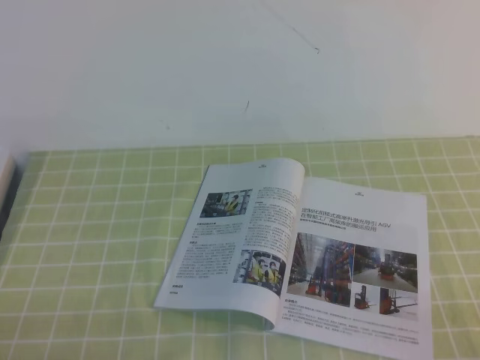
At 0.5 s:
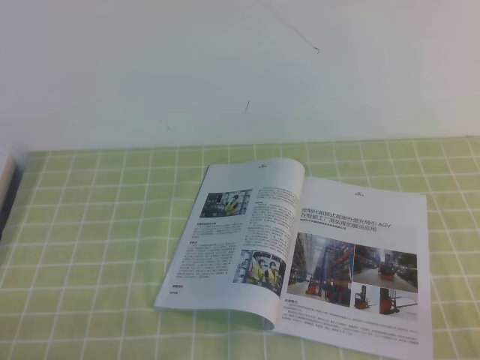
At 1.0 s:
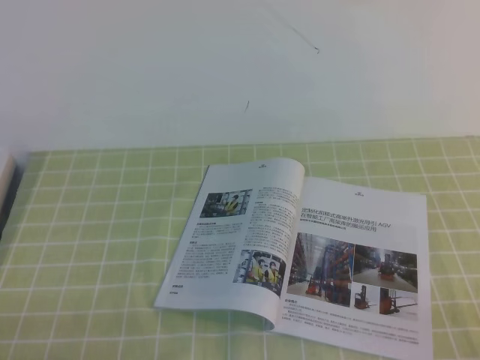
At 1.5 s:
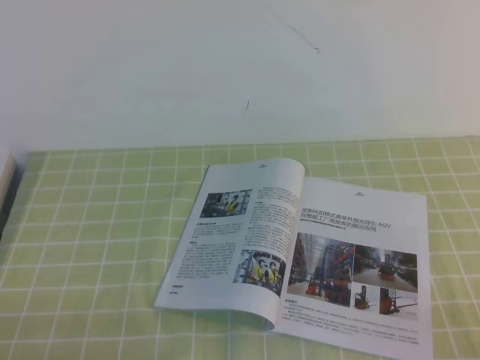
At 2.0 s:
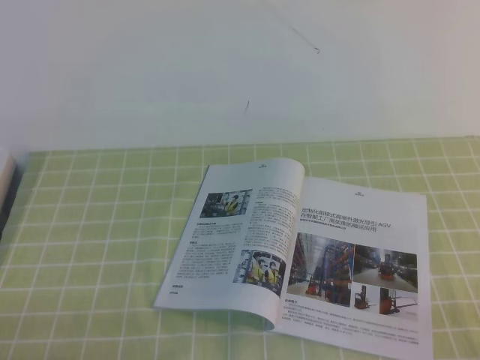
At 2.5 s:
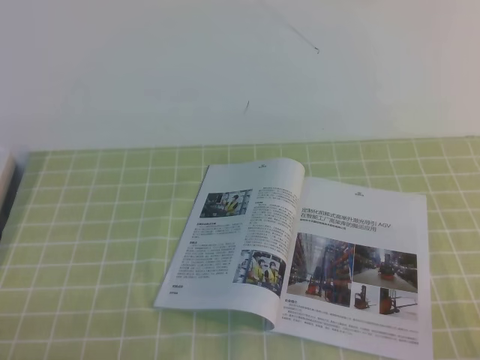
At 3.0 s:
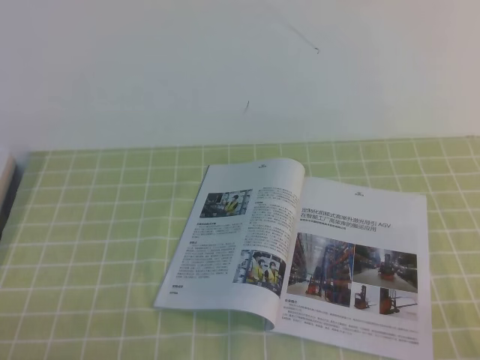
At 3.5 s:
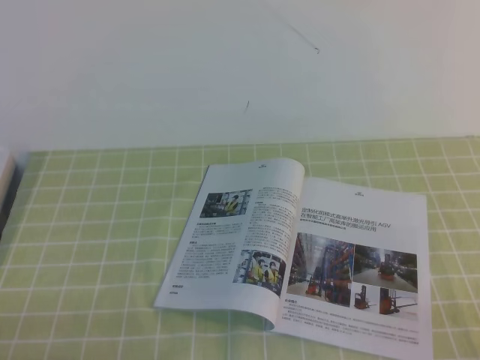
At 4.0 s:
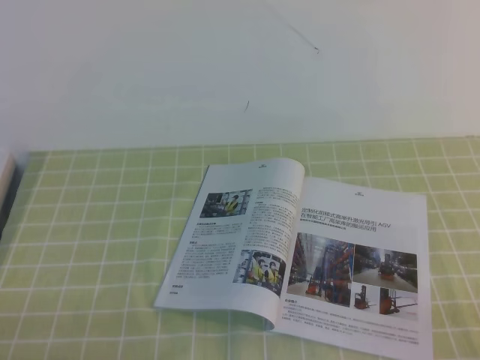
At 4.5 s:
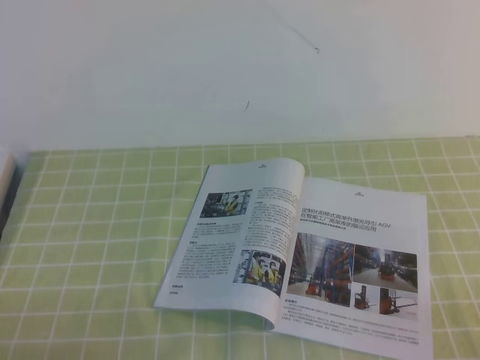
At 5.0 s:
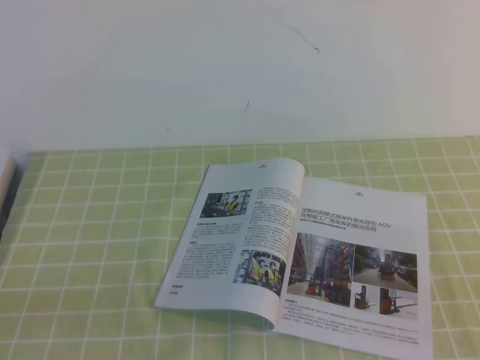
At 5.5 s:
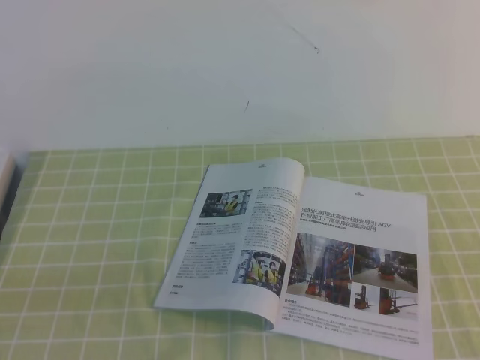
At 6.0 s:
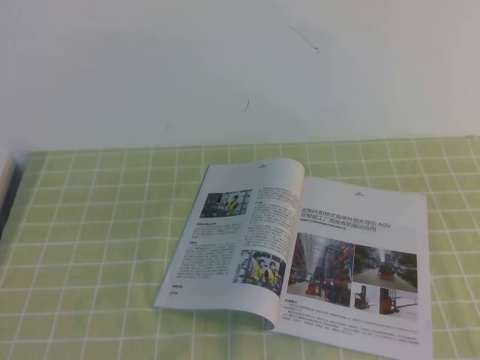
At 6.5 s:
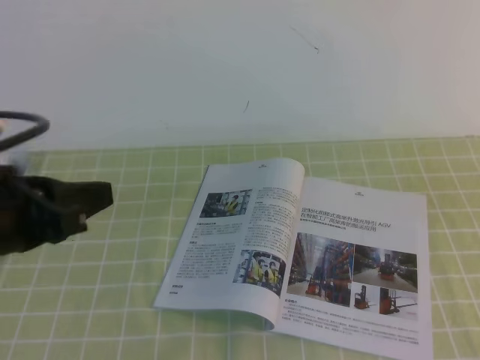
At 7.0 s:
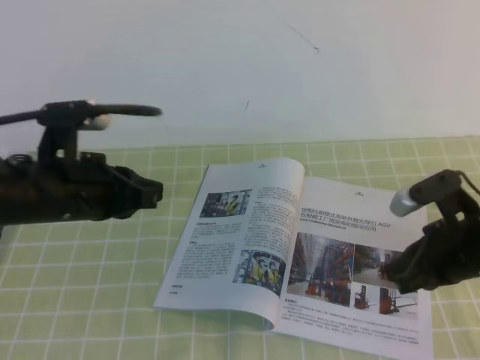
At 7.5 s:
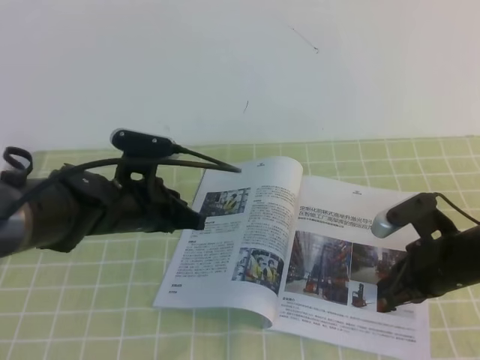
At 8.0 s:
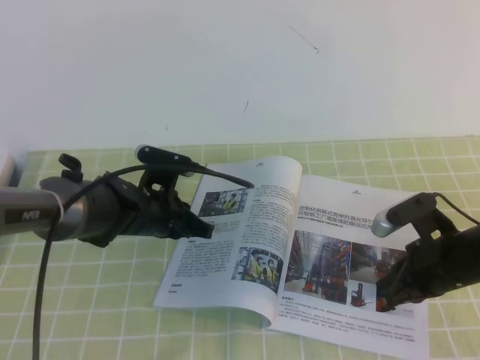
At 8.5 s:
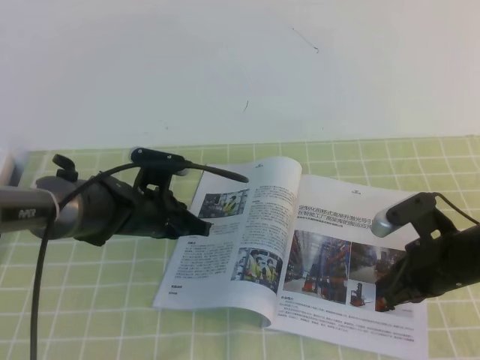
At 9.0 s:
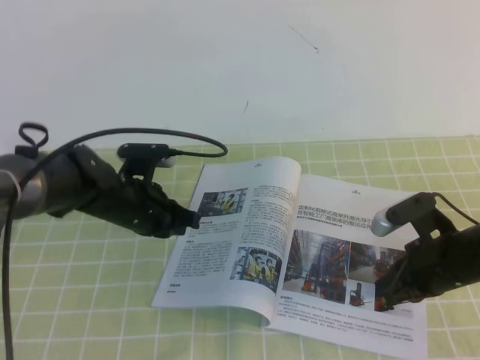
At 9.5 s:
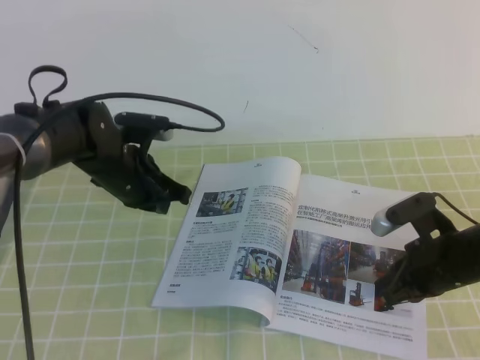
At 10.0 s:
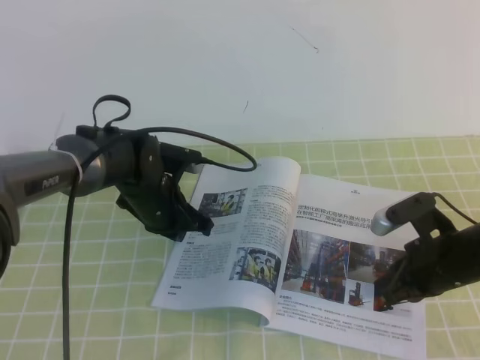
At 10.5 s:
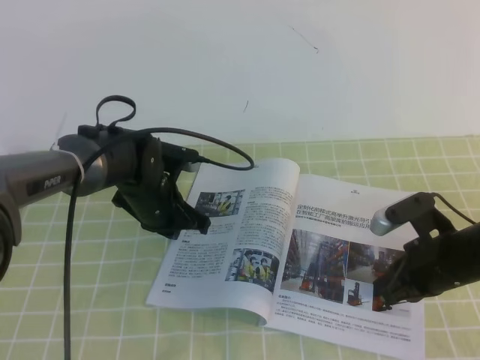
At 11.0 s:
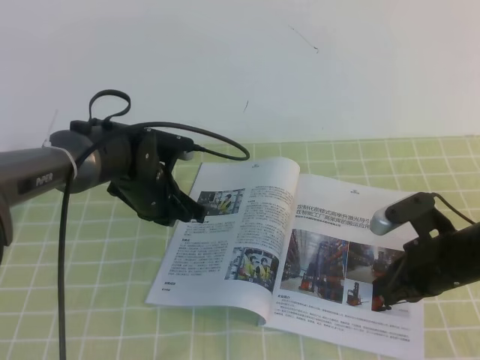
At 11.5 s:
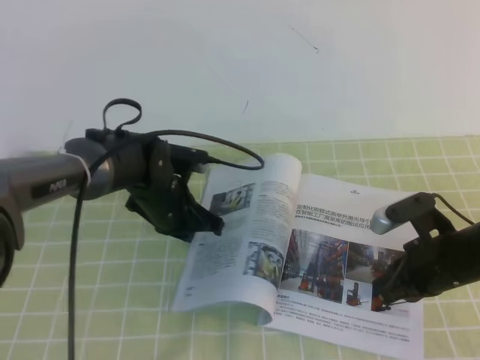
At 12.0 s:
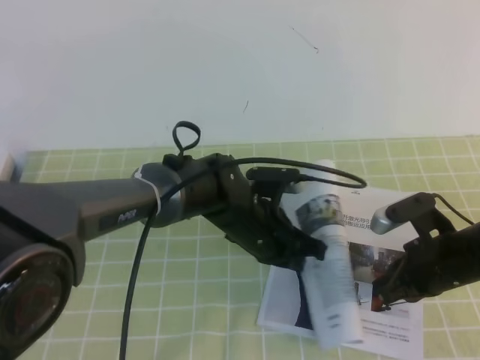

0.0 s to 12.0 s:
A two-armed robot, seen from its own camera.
Task of the whole recording: on the green tablecloth, hold the book with one hand and close it with the other.
0.0 to 4.0 s: The two grippers keep their place.
6.0 to 8.0 s: The left gripper shifts roughly 40 cm forward, downward and to the right. Meanwhile the right gripper goes some 35 cm downward and forward.
10.0 to 12.0 s: The left gripper moves to the right and backward, about 15 cm.

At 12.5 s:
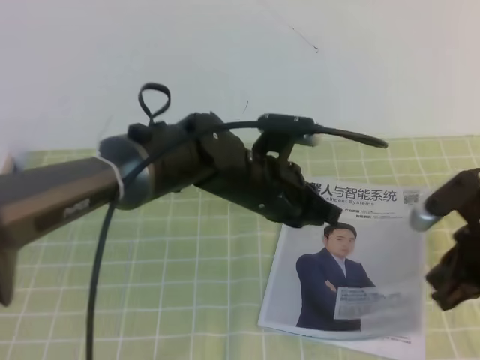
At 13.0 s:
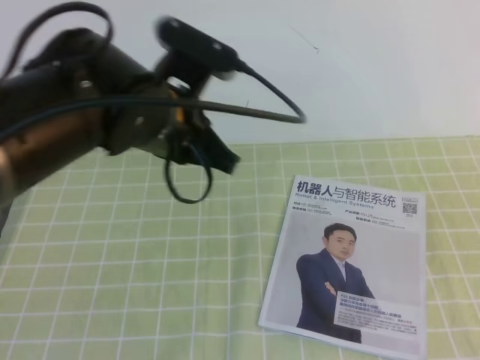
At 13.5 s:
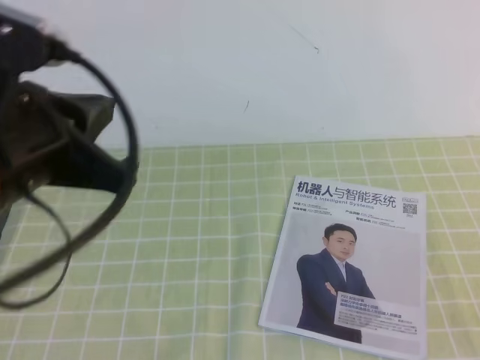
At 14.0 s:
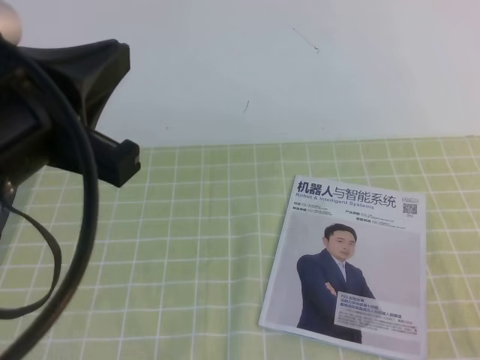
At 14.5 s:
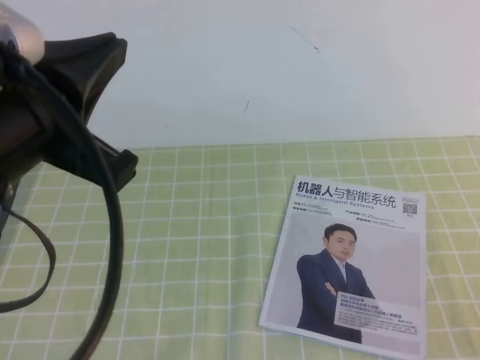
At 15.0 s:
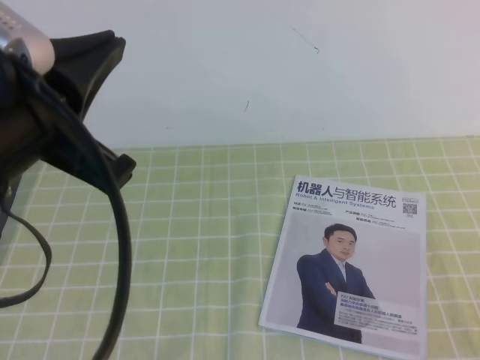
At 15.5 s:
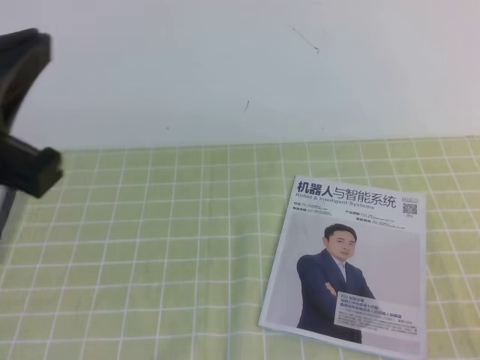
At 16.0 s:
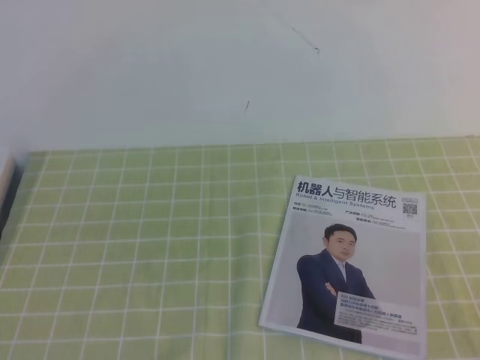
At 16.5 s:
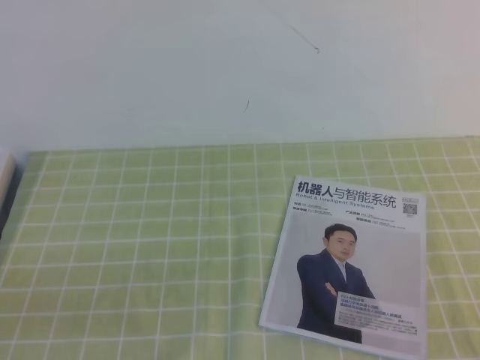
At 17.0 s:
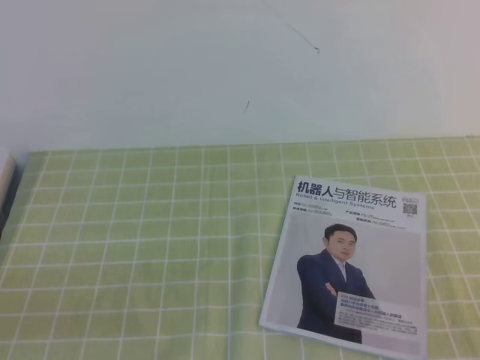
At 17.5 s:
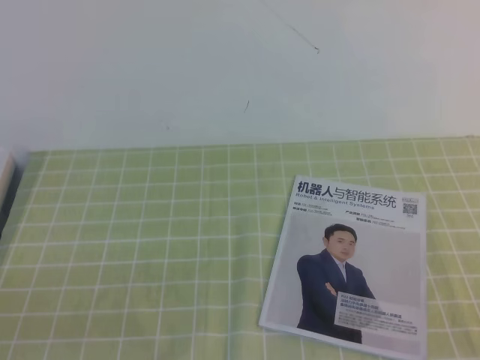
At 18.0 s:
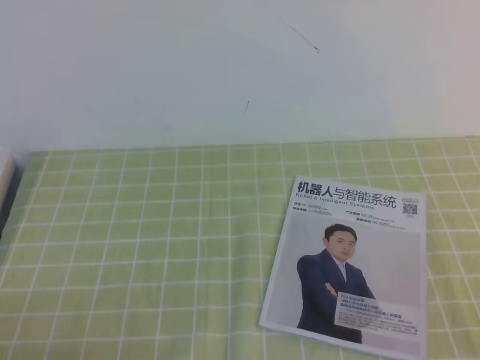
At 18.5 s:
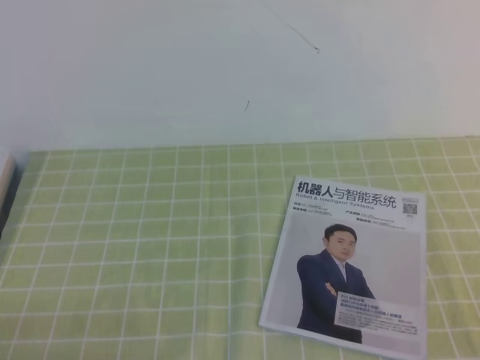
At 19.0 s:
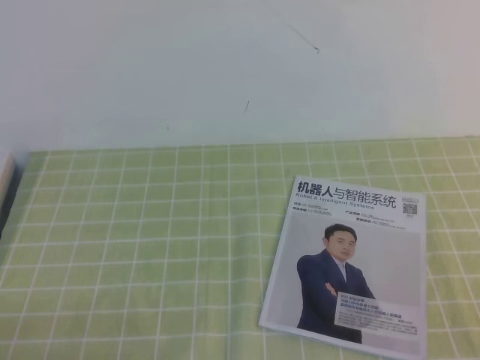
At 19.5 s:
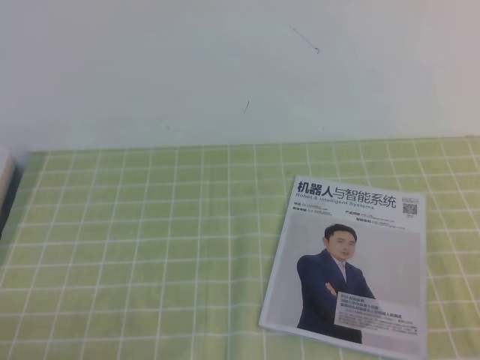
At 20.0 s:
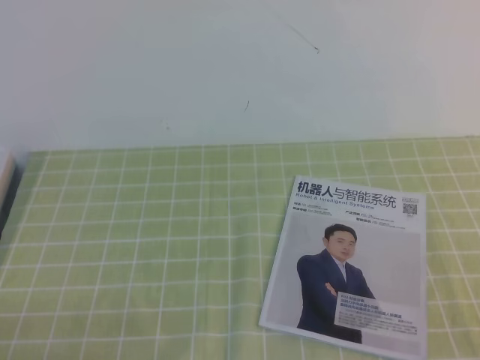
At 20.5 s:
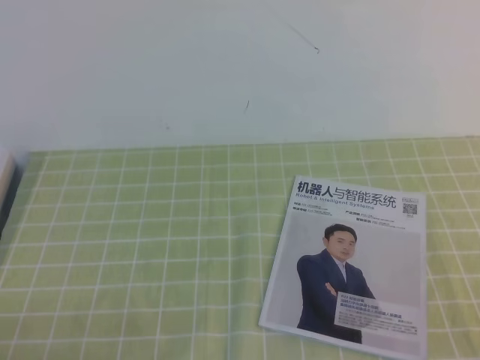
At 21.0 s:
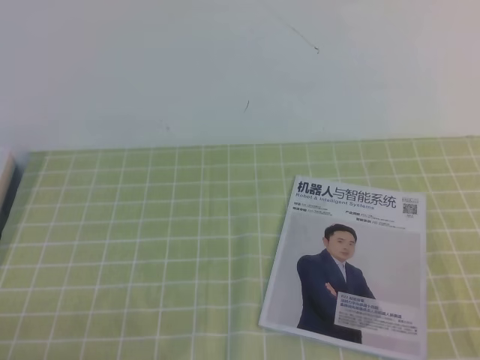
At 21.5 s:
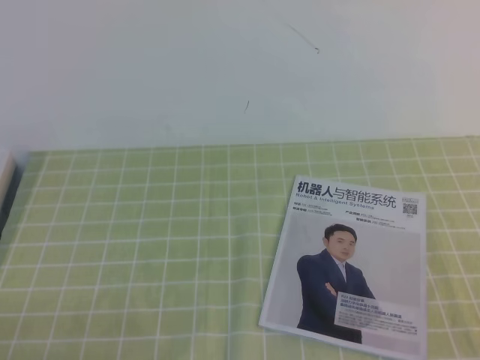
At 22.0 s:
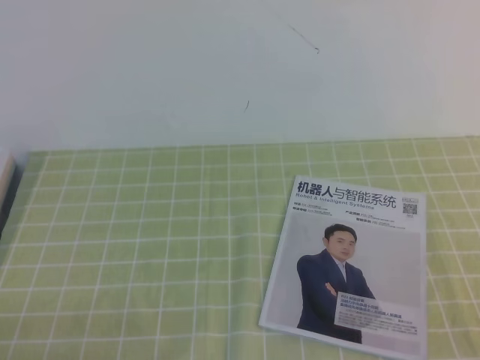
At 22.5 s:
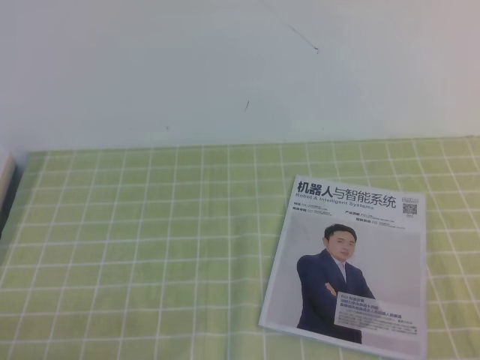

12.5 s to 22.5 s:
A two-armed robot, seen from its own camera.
Task of the whole recording: on the green tablecloth, hold the book with one hand and close it with the other.
12.5 to 14.5 s: The right gripper shifts approximately 20 cm backward. Meanwhile the left gripper is displaced upward, backward and to the left by approximately 30 cm.
14.5 to 16.5 s: The left gripper moves downward, backward and to the left, some 20 cm.

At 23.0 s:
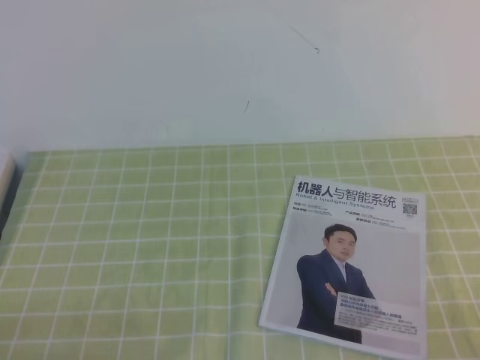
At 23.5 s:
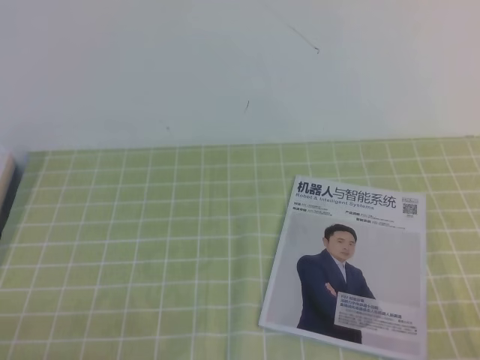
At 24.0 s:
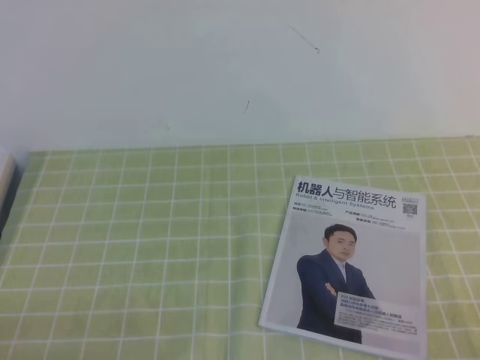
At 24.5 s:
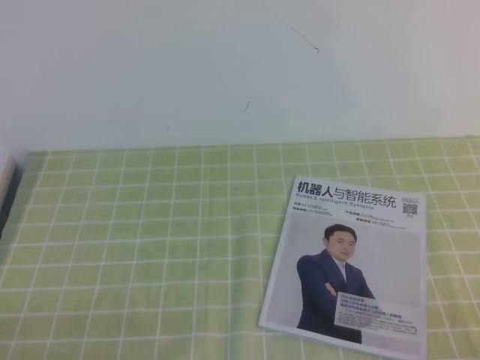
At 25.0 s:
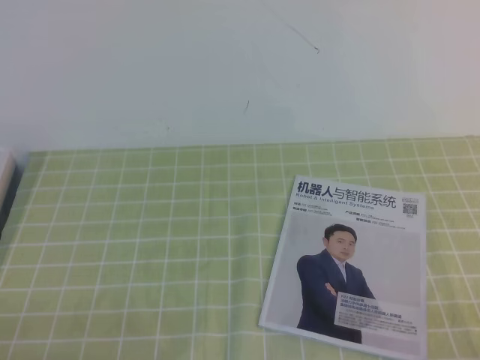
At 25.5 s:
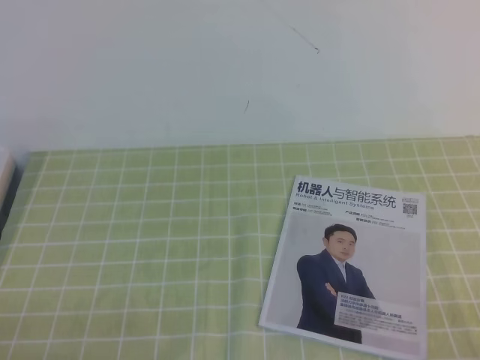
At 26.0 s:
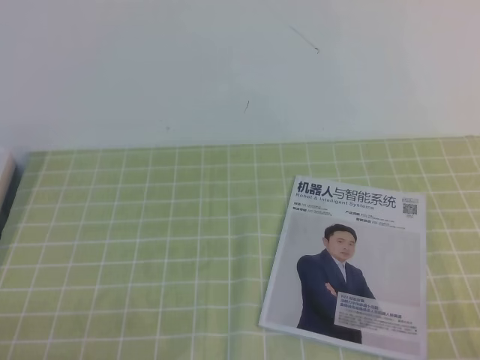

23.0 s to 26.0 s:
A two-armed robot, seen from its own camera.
Task of the whole recording: on the green tablecloth, hold the book with one hand and close it with the other.
24.5 to 26.0 s: Both grippers stay put.
